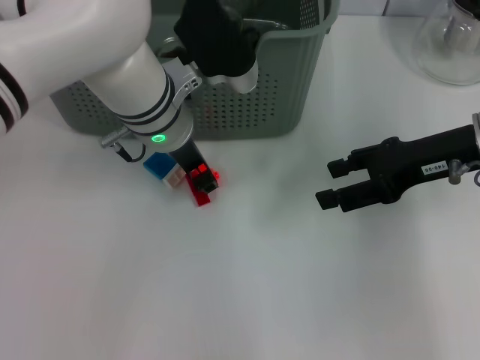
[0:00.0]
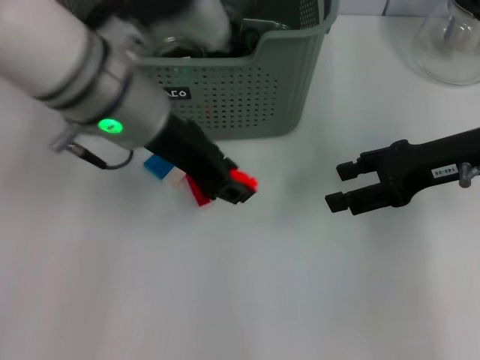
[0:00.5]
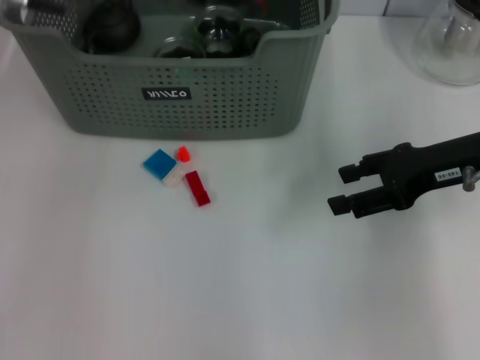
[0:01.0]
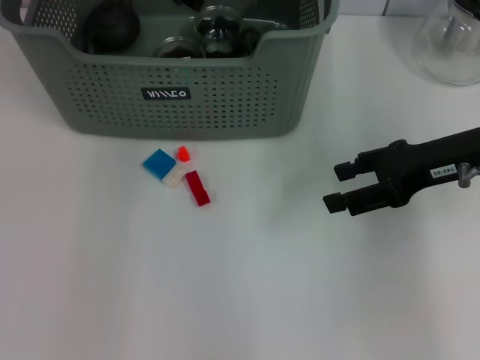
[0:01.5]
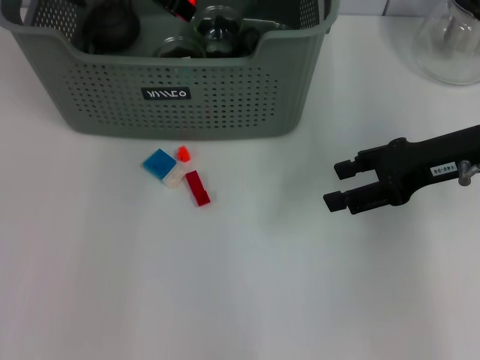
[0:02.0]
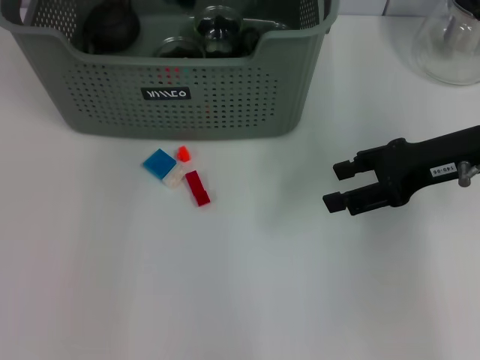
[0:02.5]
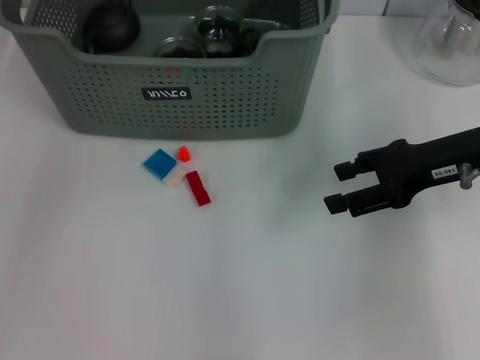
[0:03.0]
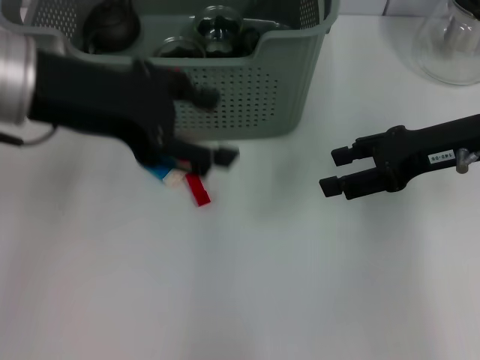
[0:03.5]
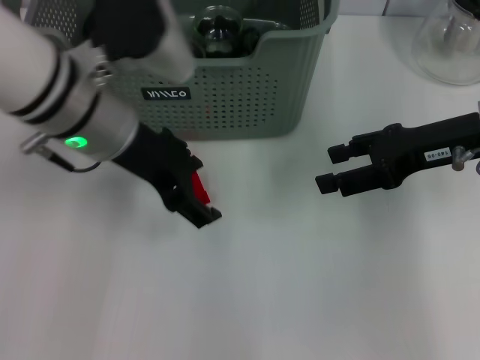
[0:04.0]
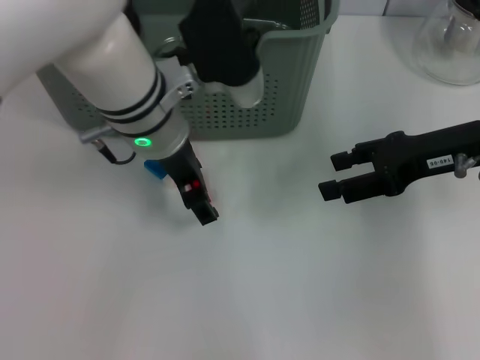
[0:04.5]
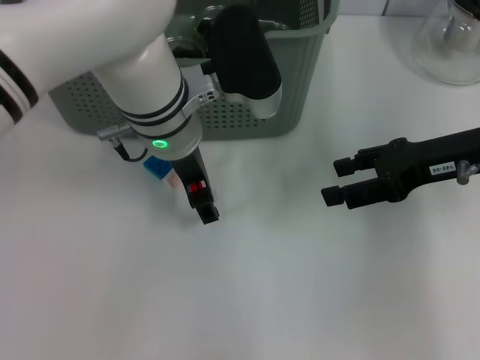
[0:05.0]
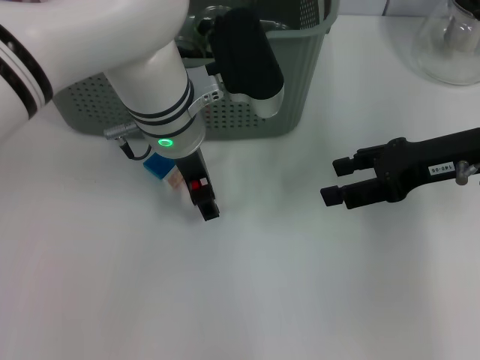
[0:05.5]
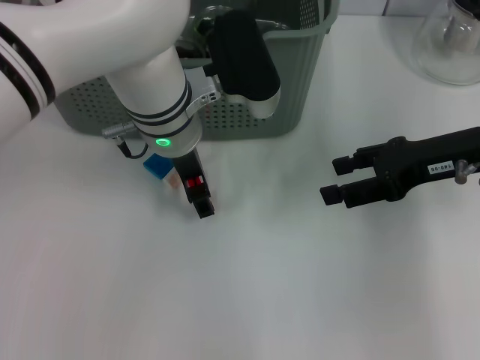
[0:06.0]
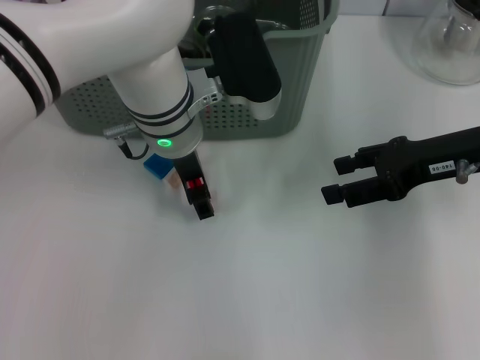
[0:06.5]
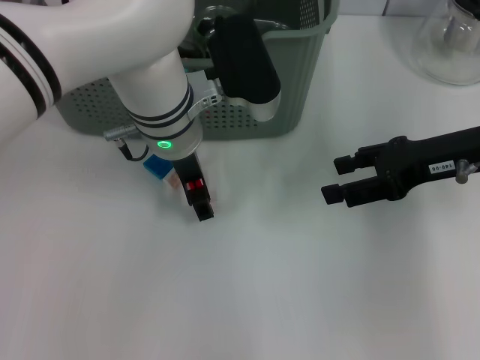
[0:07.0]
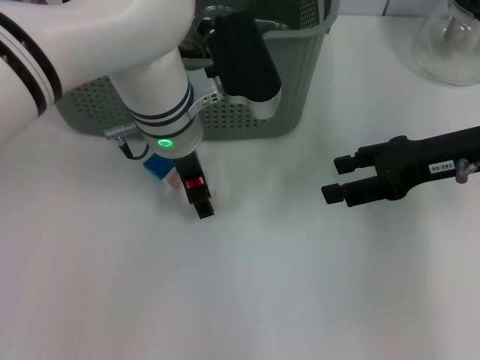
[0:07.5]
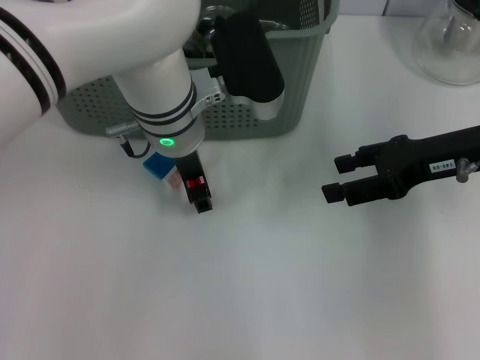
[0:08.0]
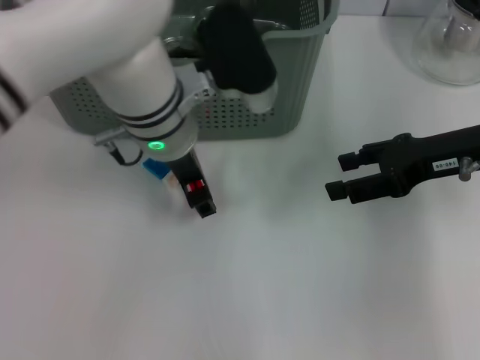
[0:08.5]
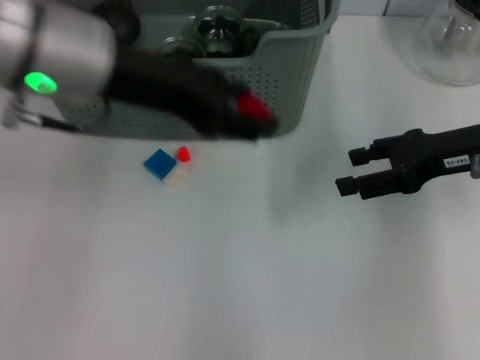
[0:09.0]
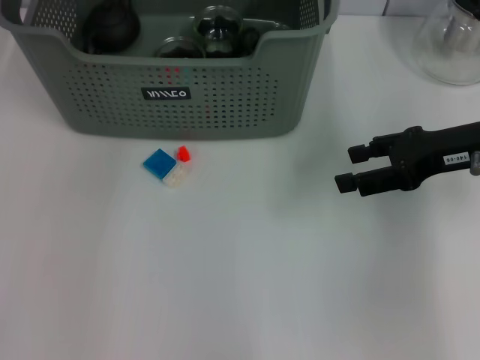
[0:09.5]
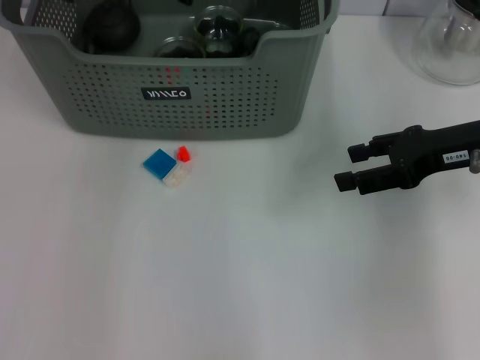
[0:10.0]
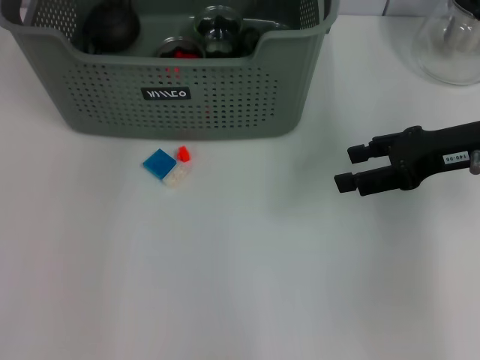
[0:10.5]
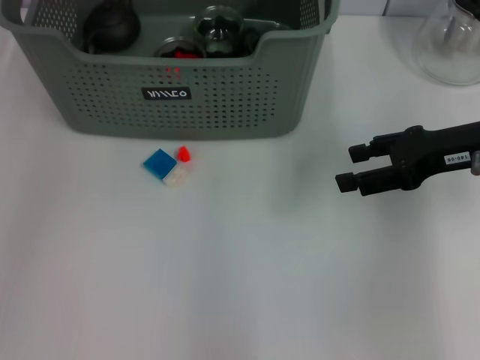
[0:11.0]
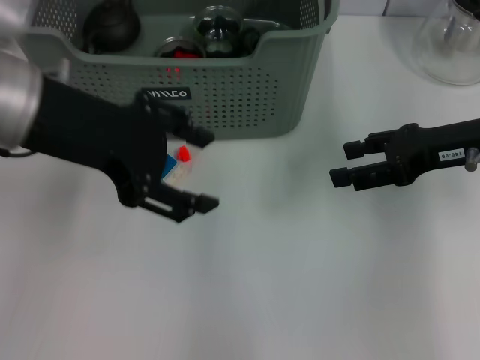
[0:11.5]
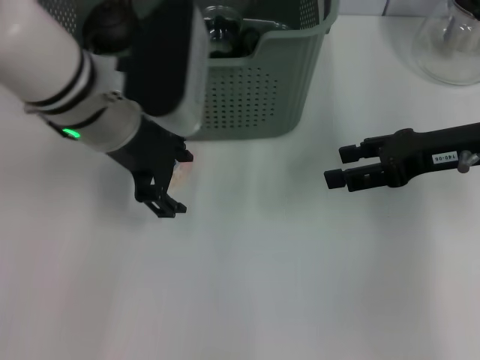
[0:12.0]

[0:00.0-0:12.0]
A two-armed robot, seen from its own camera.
Task of the whole recording: pick up the teacup on the table and place it into the storage bin, pick up the block on the table and place it into the storage bin.
Step, 0:00.0 to 0:02.0: Place the orange block in the storage box with left gripper.
Step, 0:03.0 to 0:08.0: Grasp the red block with left gripper.
Step, 0:08.5 to 0:10.0: Place the red block in the storage box with left gripper.
0:00.0 to 0:02.0: The left gripper heads upward, forward and to the left, covering about 15 cm.
0:02.0 to 0:04.0: The left gripper heads backward, covering roughly 15 cm, and opens up.
0:04.0 to 0:06.0: The left gripper travels to the right and downward by roughly 10 cm.
0:06.0 to 0:08.0: Neither gripper changes place.
0:08.0 to 0:10.0: The left gripper shifts approximately 15 cm upward, to the left and forward.
0:10.0 to 0:12.0: The left gripper moves backward and downward, approximately 10 cm.

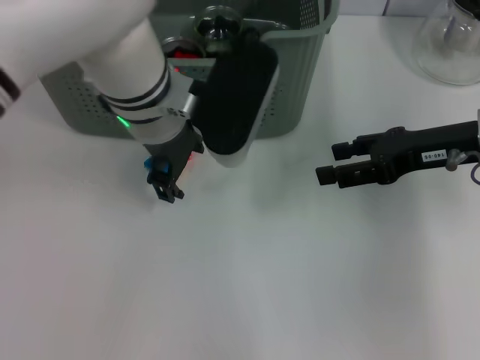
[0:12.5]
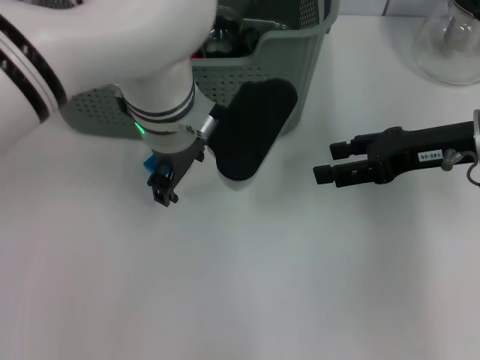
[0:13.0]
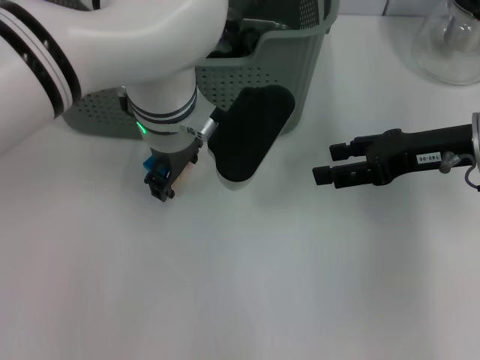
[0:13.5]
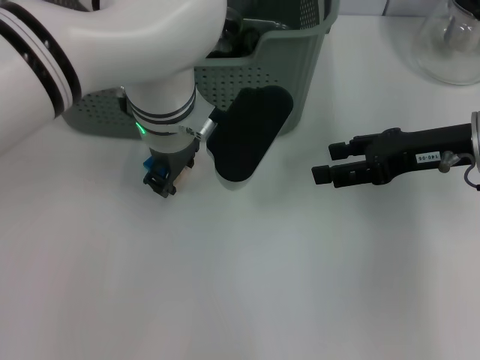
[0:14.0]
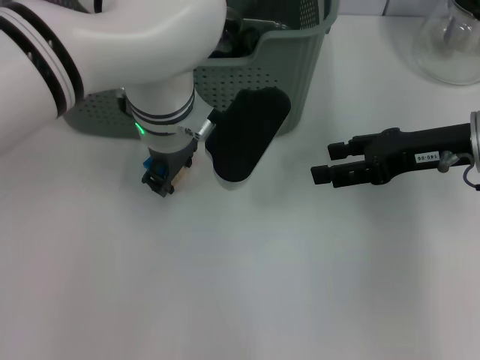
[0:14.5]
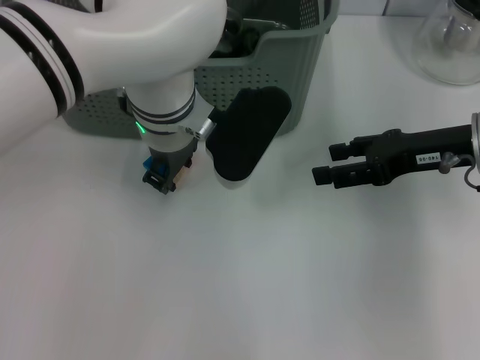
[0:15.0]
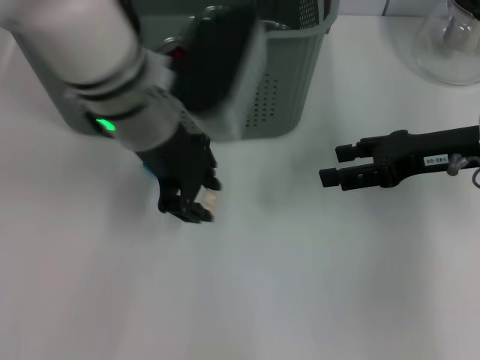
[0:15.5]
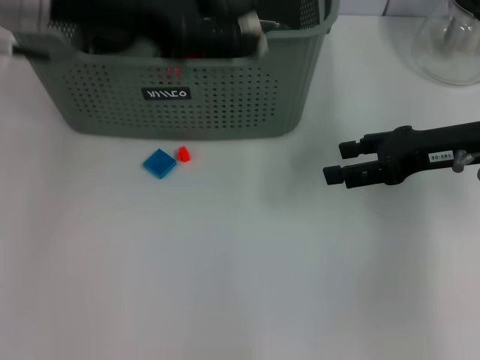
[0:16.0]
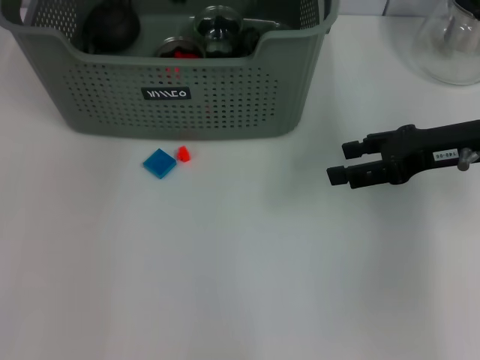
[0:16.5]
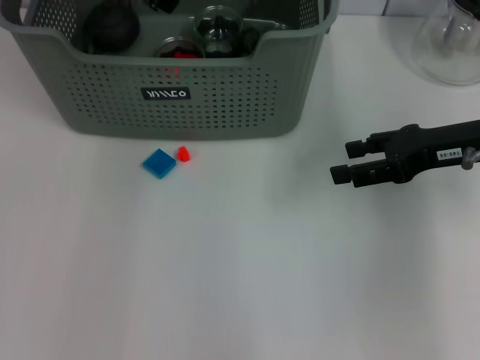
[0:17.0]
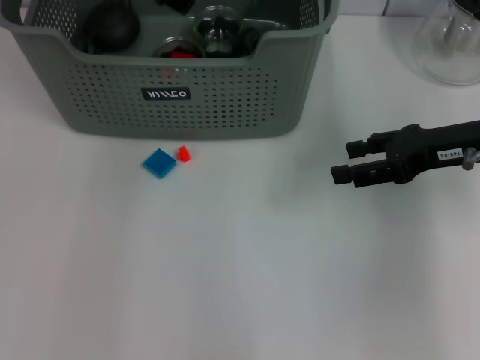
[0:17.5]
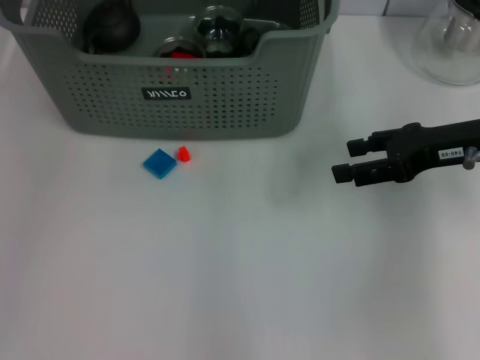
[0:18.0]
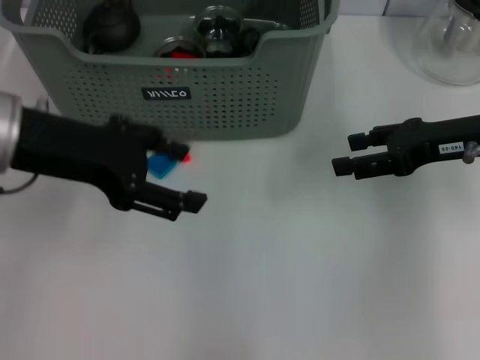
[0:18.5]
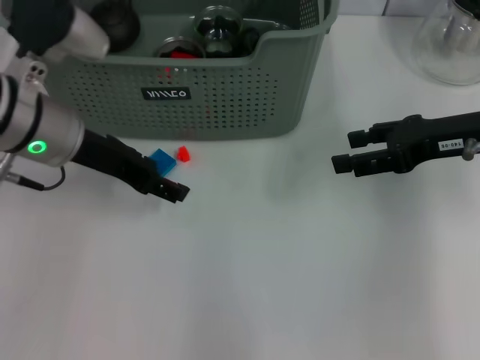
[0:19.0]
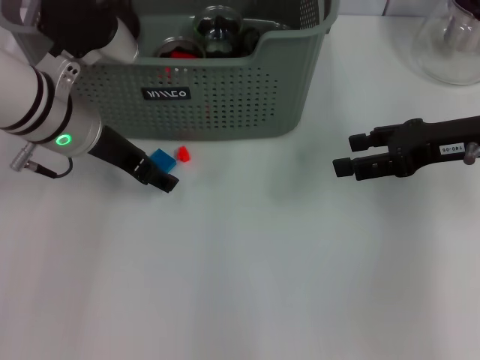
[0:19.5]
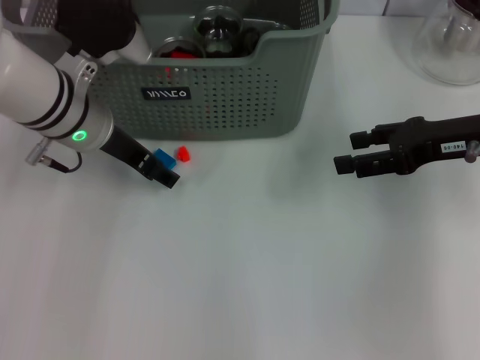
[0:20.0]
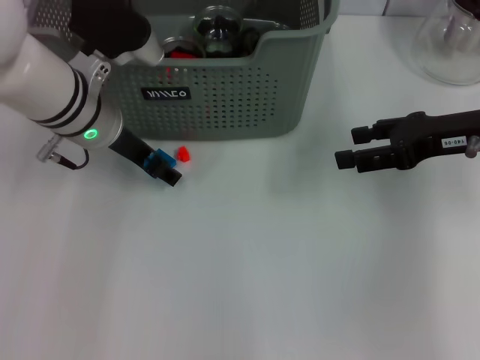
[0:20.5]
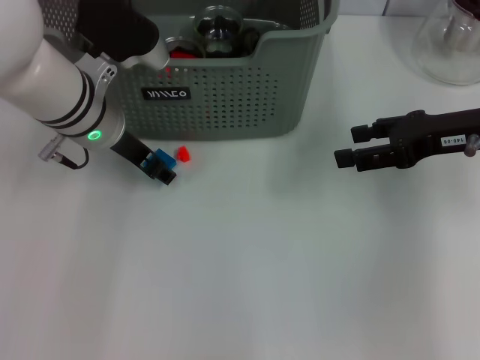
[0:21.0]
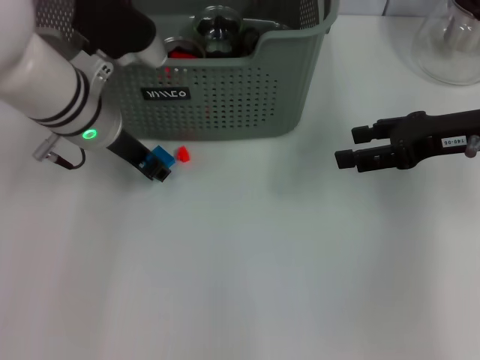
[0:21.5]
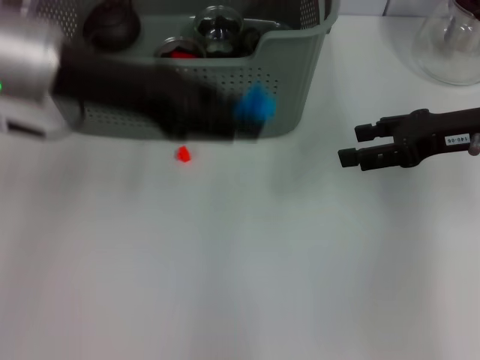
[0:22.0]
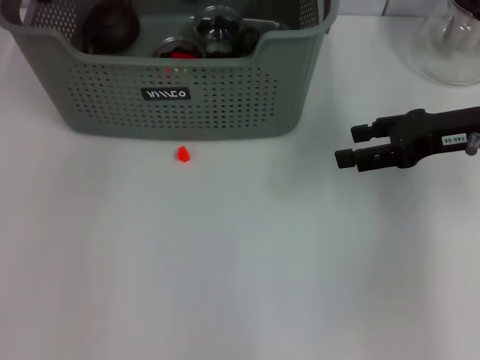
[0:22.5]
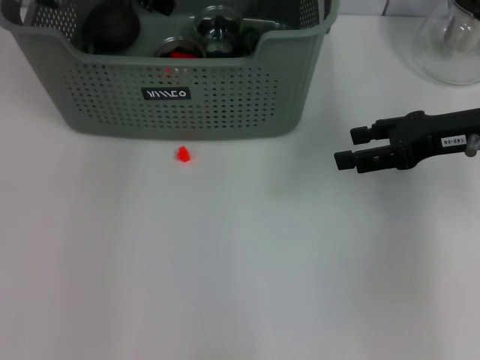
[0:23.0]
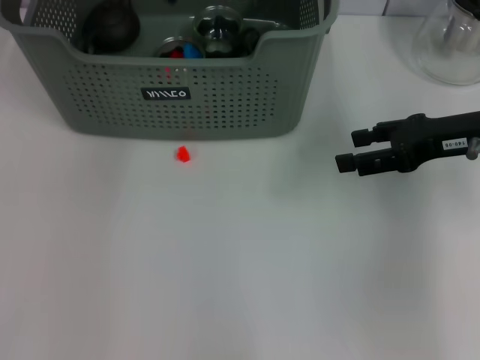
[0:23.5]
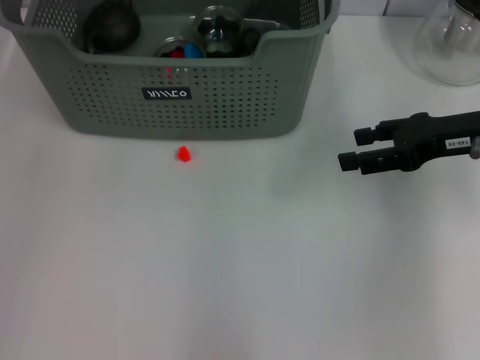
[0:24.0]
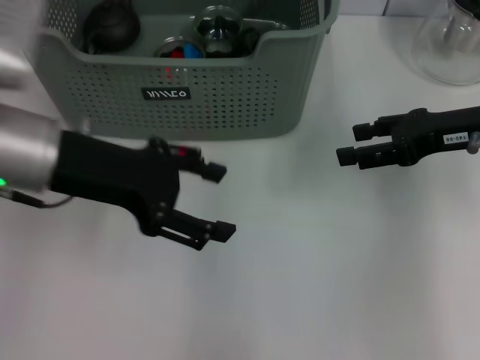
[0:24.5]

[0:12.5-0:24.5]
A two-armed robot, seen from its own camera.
Task of the whole recording: pick up the teacup on the table and place it into the storage bin, pick up the block on the table and place it into the storage bin.
Step, 0:12.5 to 0:15.0: Grasp the white block with left gripper.
Step, 0:15.5 to 0:17.0: Place the white block in the storage box with left gripper.
Step, 0:17.5 to 0:21.0: Grasp the dark blue block with left gripper.
Step, 0:21.5 to 0:23.5: Place the dark blue block in the storage box with left gripper.
0:12.5 to 0:14.5: There are only small adjustments of the grippers.
0:14.5 to 0:16.5: The left gripper heads upward, to the left and forward, covering approximately 20 cm.
0:16.5 to 0:18.5: The left gripper travels backward by roughly 15 cm, and opens its fingers.
0:18.5 to 0:20.5: The left gripper moves forward, downward and to the right, roughly 15 cm.
0:20.5 to 0:22.5: The left gripper shifts roughly 15 cm upward, and closes.
0:22.5 to 0:24.5: The left gripper goes about 15 cm backward and downward, and opens up.

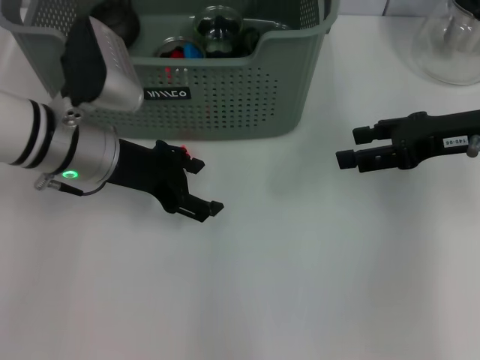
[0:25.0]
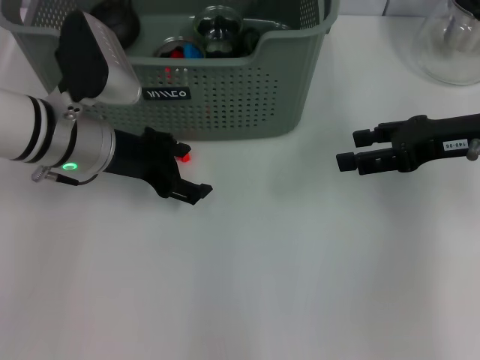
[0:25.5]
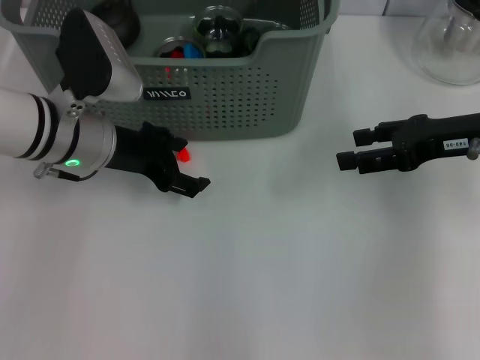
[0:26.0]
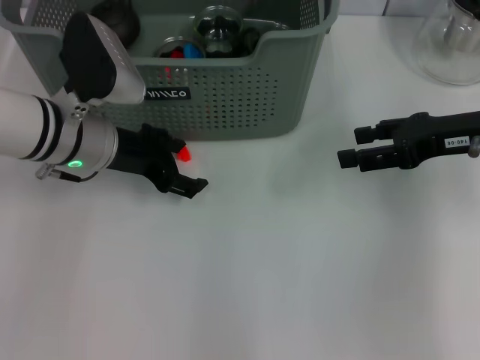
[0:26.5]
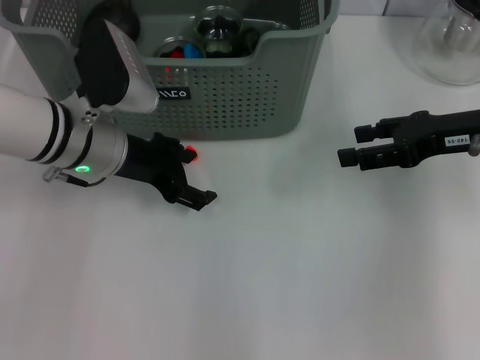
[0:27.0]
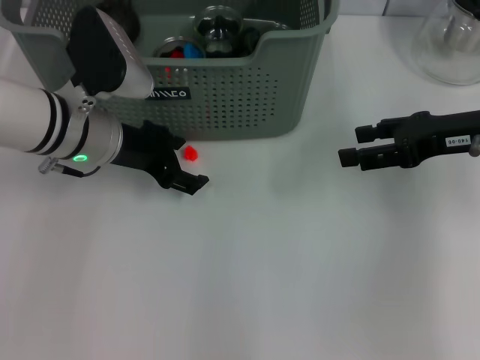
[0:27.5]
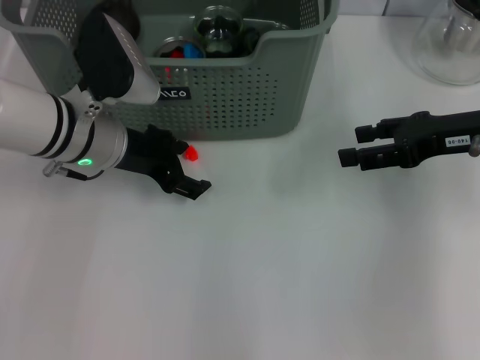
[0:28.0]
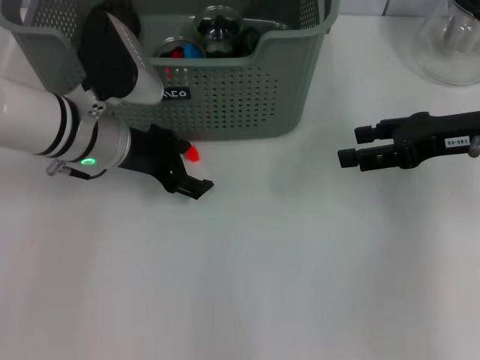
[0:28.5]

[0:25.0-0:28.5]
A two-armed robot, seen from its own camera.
Task of the whole recording: pick up the teacup on the table and place it into the storage bin, pick up the block on the table and place it into the storage bin.
0:25.0 to 0:28.5: There are only small adjustments of the grippers.
